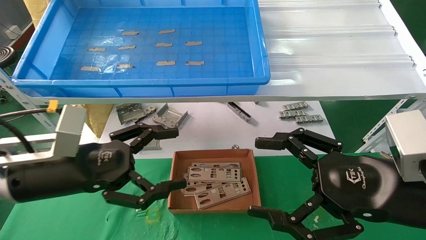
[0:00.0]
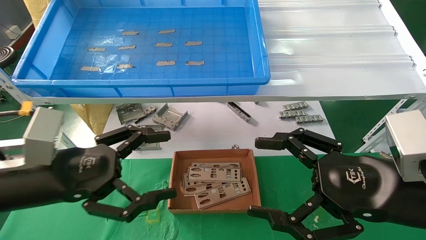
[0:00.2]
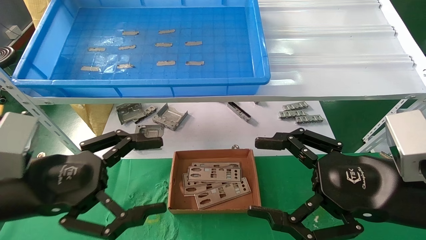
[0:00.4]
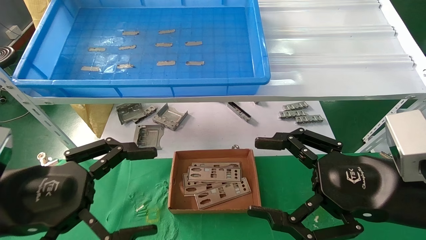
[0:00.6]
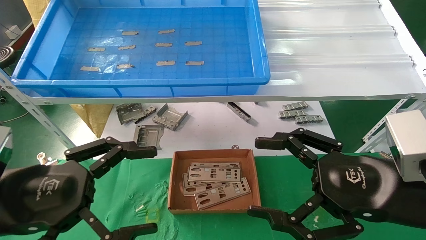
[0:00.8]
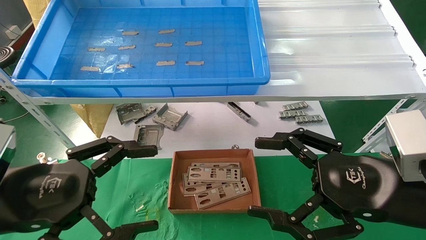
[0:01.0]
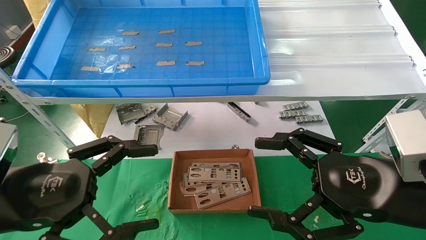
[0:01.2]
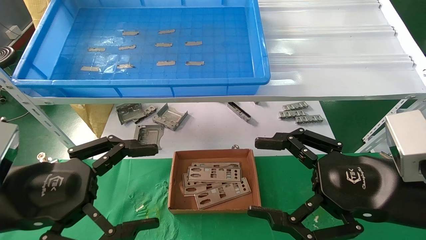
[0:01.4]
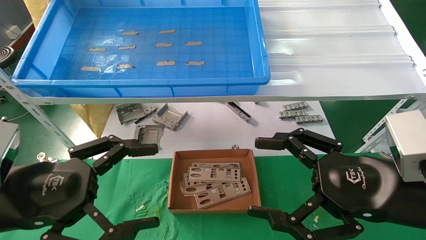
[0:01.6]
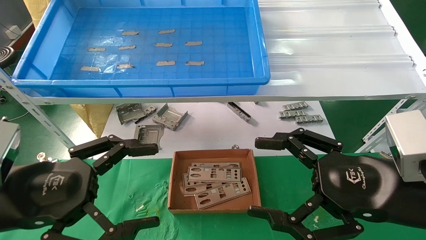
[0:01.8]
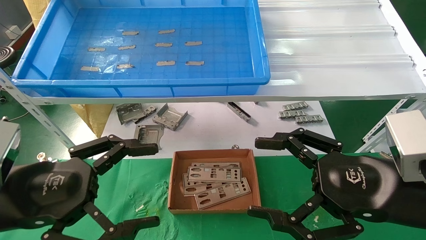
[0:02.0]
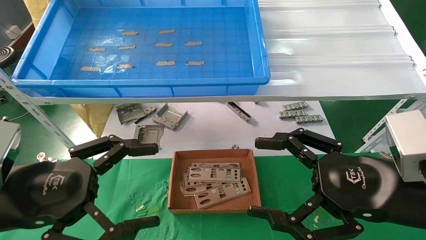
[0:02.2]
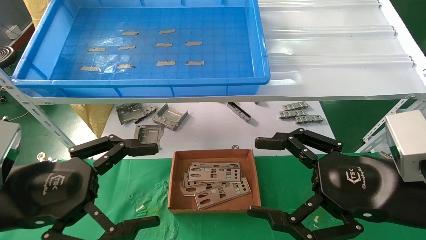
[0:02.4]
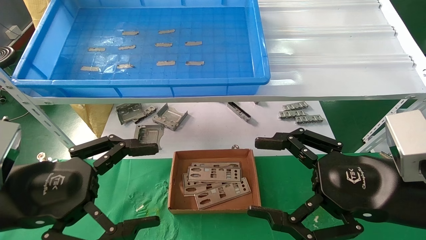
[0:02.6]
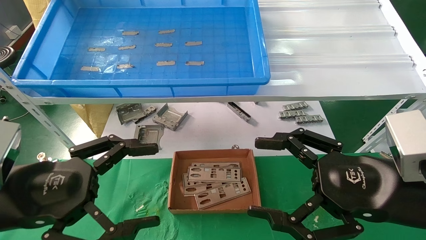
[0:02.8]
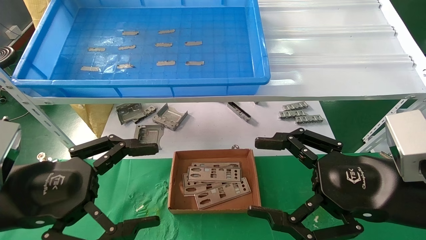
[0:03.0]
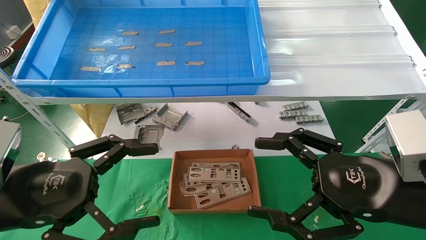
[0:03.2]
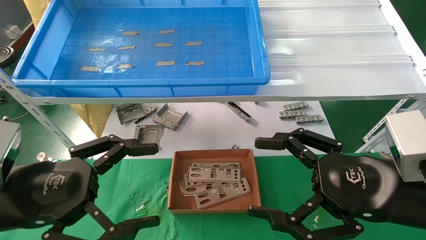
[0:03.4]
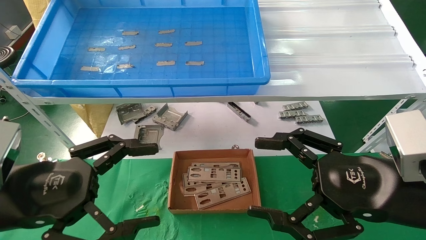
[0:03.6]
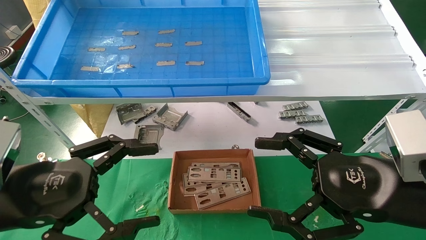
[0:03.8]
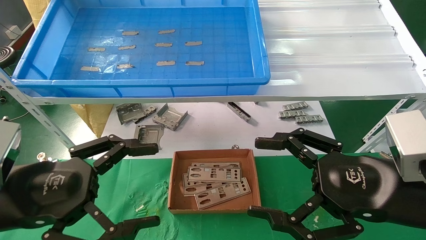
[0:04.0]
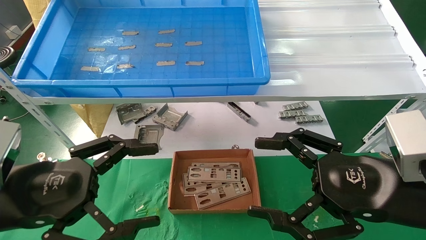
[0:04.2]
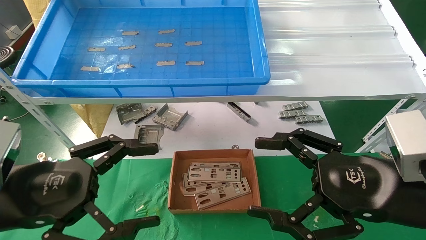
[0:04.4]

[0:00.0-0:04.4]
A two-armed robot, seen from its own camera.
Task of the whole recording: pick up the parts on the tray and put them in the cardboard box.
0:00.0 to 0:01.4: The left gripper is displaced backward by roughly 5 cm.
0:01.4 to 0:04.4: The two grippers keep their place.
